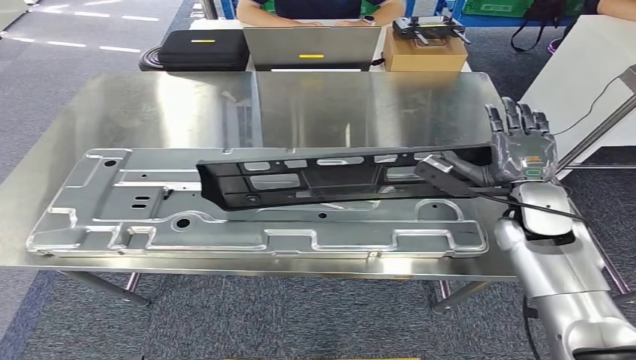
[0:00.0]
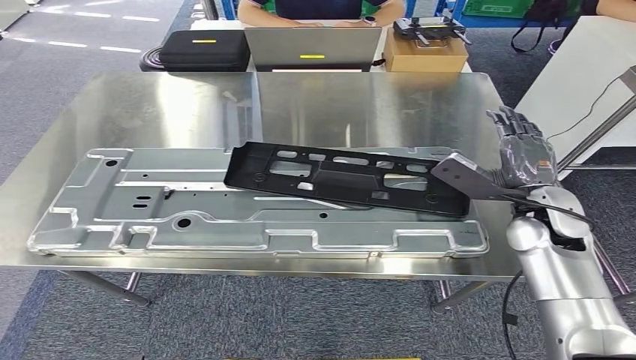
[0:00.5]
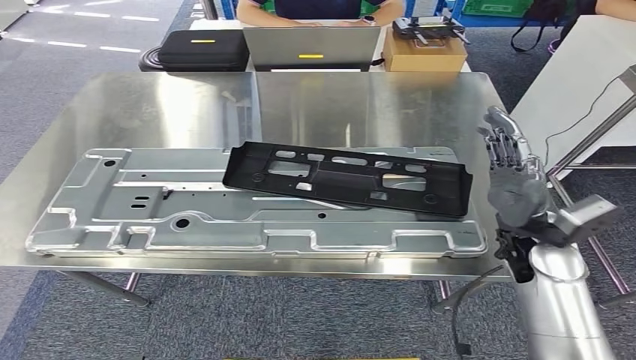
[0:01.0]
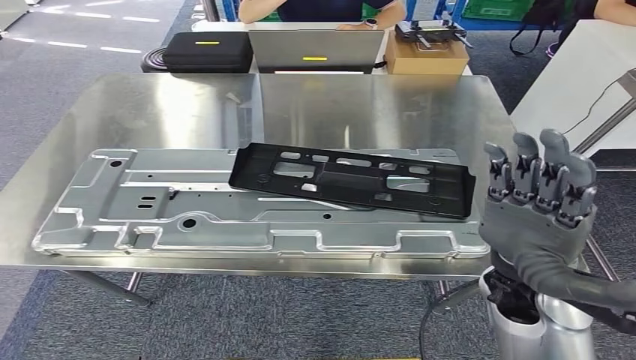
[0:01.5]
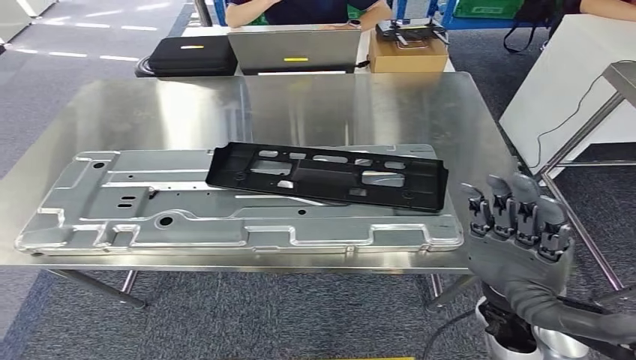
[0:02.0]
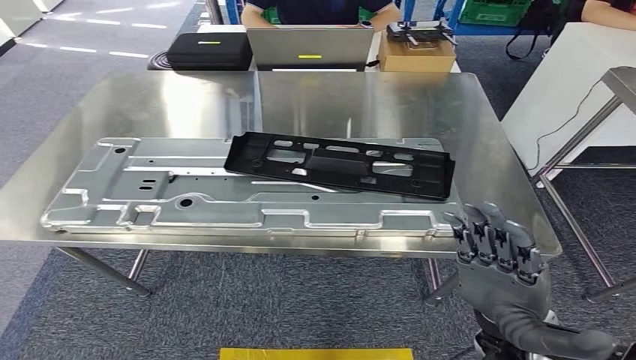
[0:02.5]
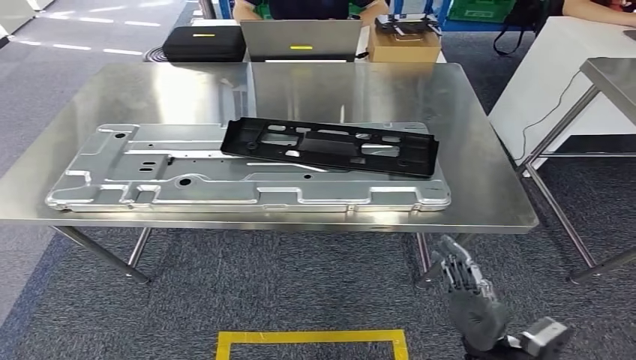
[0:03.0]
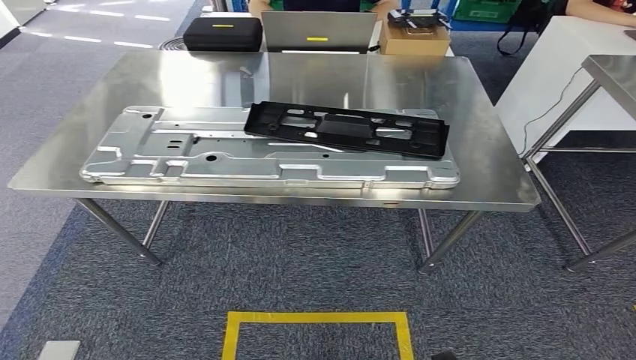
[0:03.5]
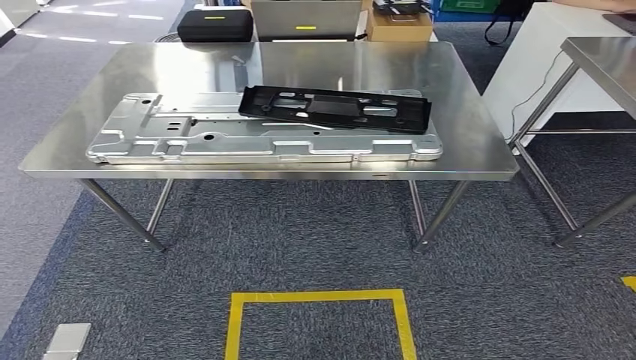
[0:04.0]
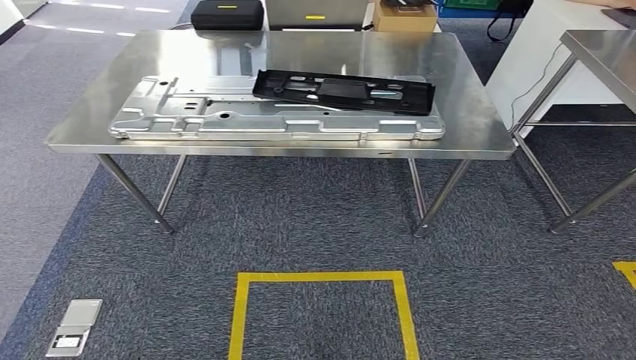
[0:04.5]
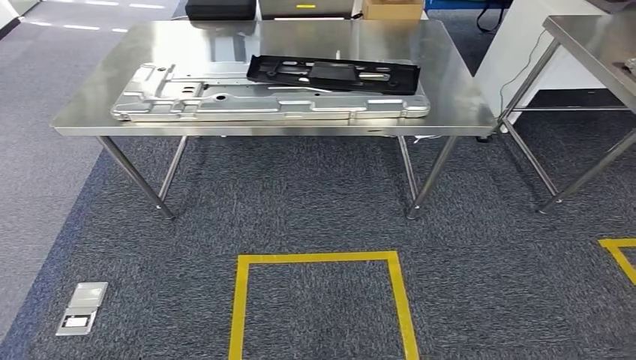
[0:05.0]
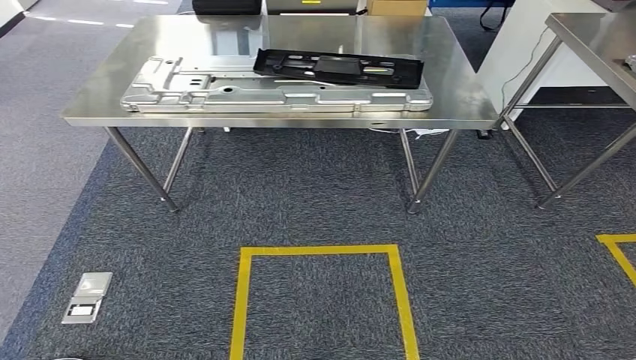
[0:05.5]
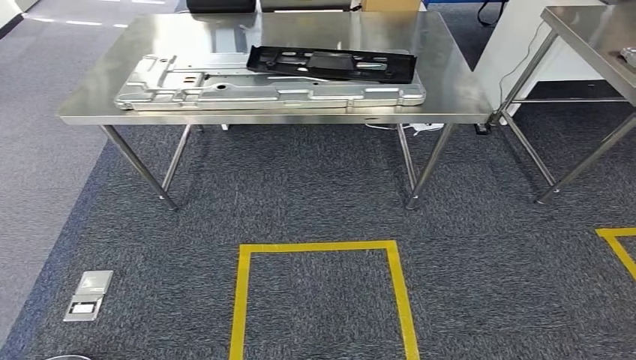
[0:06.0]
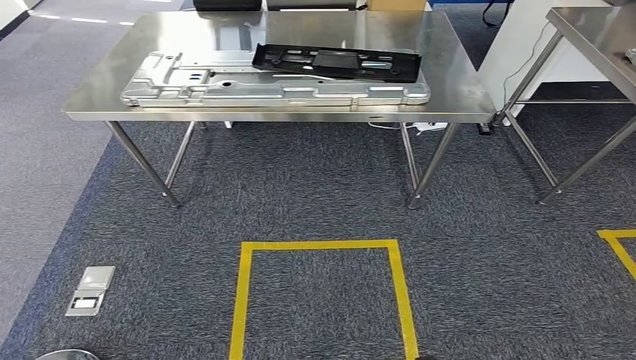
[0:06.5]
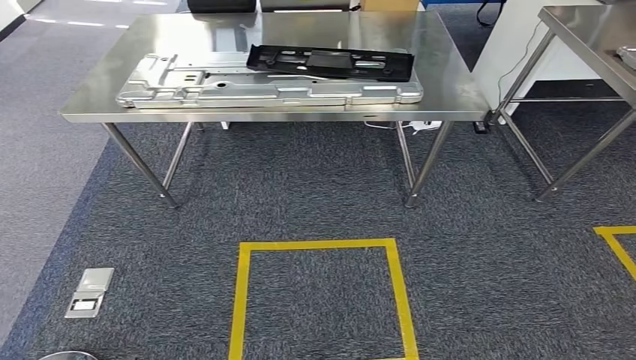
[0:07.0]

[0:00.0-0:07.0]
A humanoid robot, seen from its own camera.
Step, 0:02.0 to 0:06.5: Move to the initial position of the workbench.
0:05.0 to 0:07.0: There are only small adjustments of the hands.
